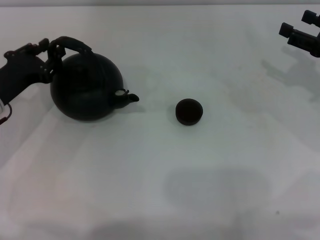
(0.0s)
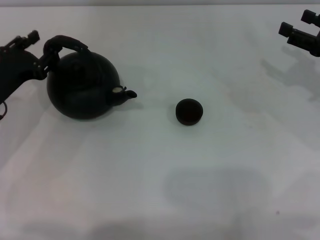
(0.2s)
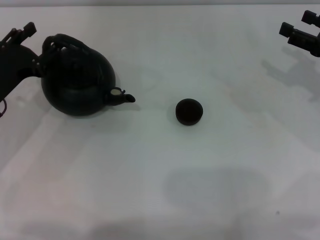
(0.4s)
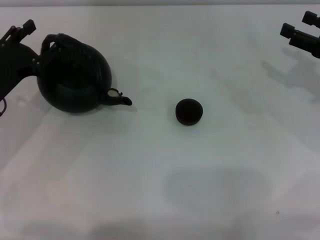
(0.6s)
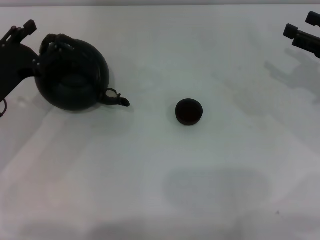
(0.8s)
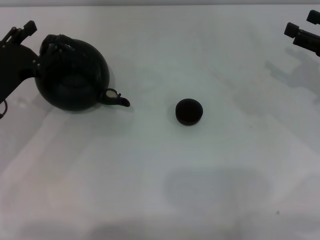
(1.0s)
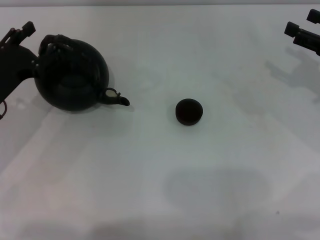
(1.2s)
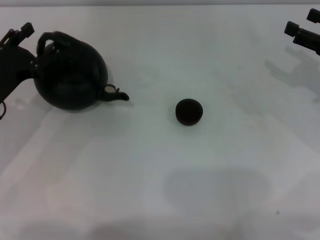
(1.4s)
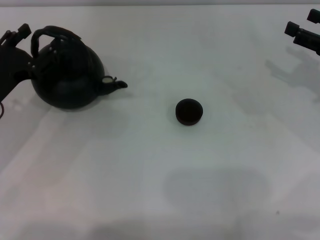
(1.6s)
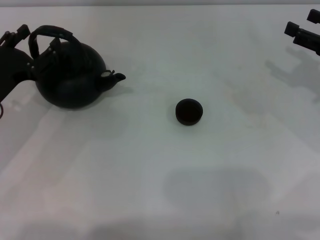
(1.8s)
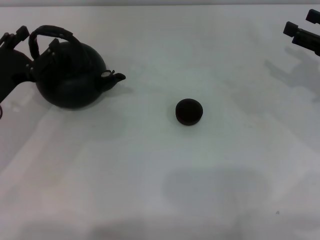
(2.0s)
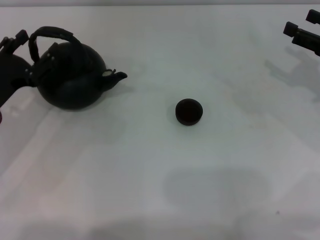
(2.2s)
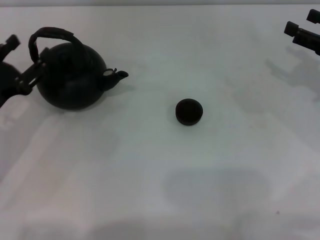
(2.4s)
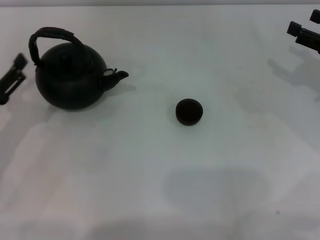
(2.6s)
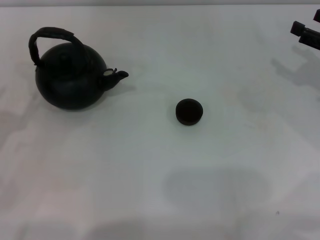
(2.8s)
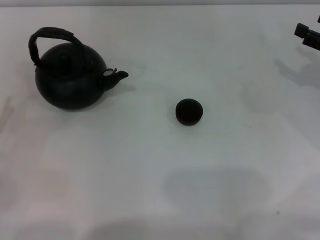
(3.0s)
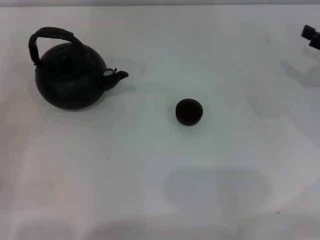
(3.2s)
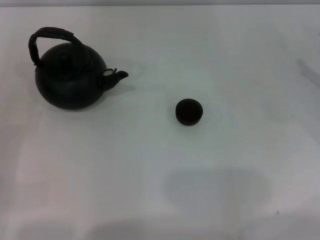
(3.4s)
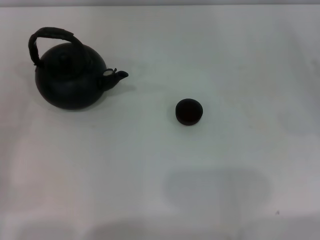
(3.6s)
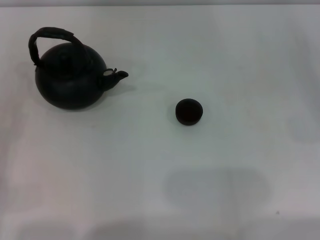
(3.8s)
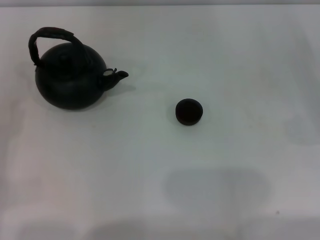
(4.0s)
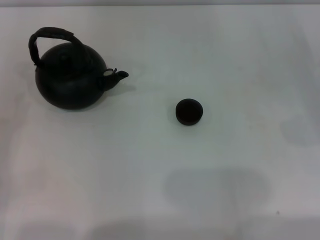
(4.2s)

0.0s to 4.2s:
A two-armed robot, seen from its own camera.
Task of the whole recording: Grasp the handle of the teapot with one hand and pour tea into the teacup.
Step, 0.0s to 2.6s: Put down the teapot with the left gripper.
0.0s to 1.4s: The left gripper opens its fingers.
1.4s to 2.8s: The left gripper travels backward by about 10 cm.
2.8s to 4.2s: The right gripper travels backward and downward by roughly 10 cm.

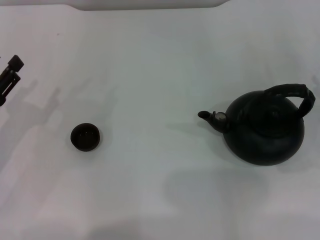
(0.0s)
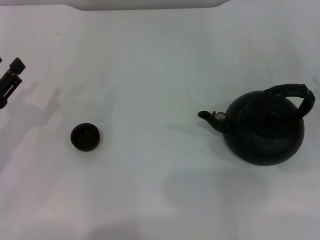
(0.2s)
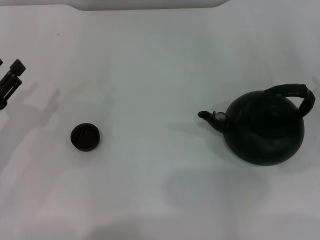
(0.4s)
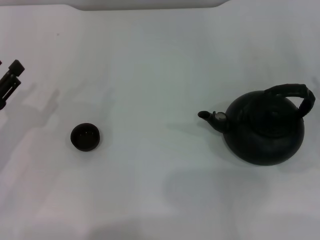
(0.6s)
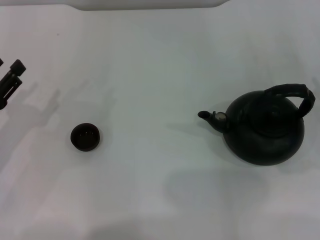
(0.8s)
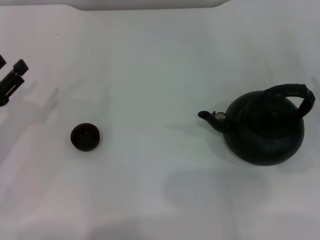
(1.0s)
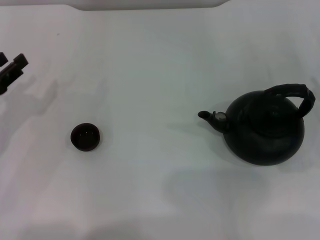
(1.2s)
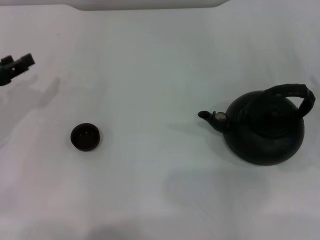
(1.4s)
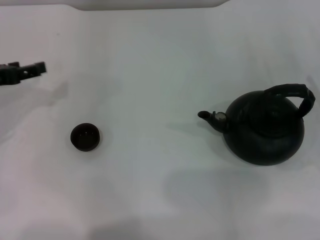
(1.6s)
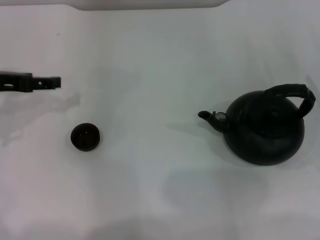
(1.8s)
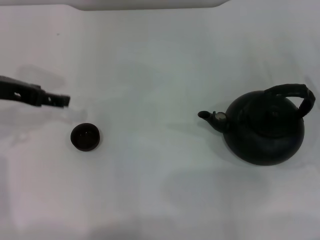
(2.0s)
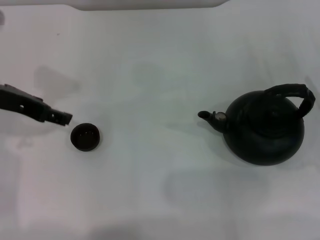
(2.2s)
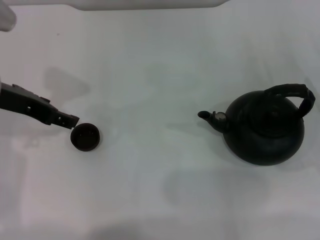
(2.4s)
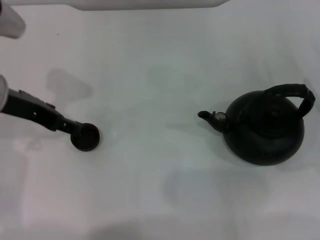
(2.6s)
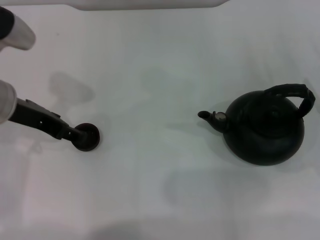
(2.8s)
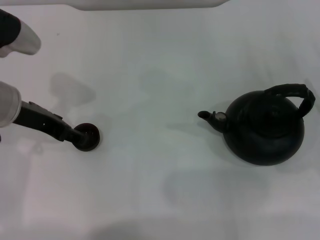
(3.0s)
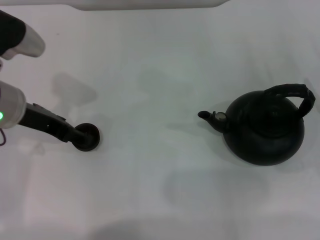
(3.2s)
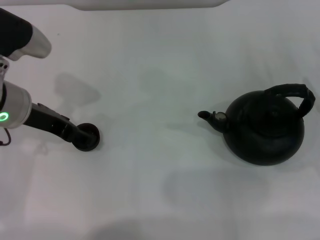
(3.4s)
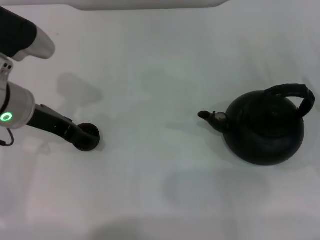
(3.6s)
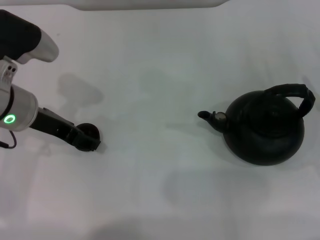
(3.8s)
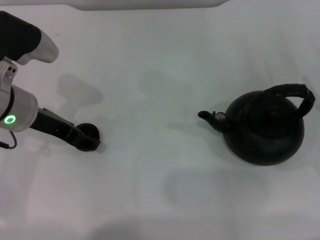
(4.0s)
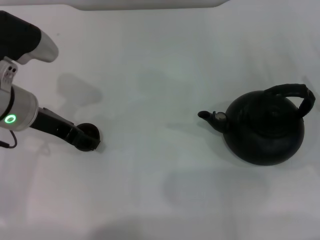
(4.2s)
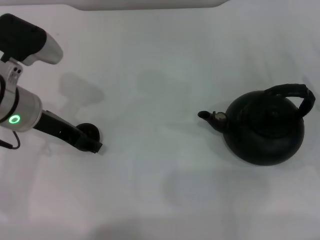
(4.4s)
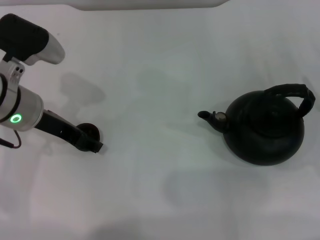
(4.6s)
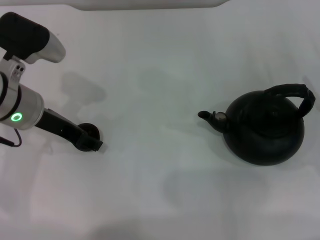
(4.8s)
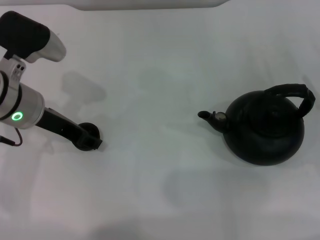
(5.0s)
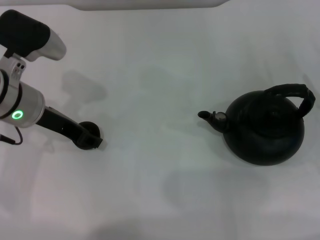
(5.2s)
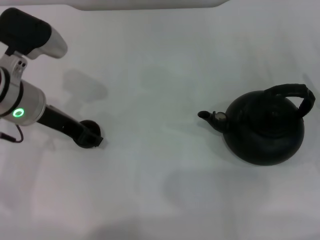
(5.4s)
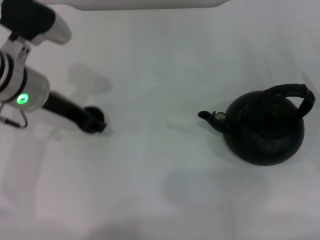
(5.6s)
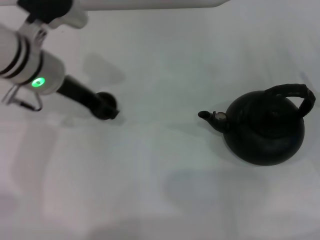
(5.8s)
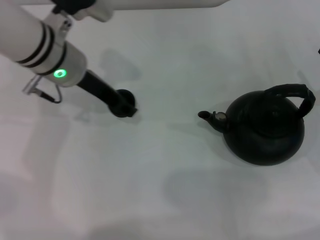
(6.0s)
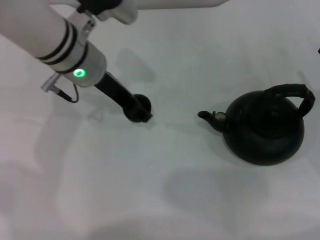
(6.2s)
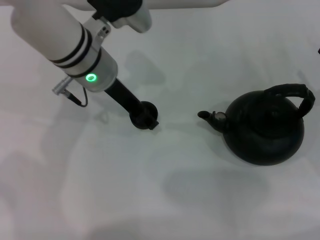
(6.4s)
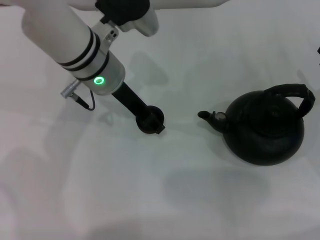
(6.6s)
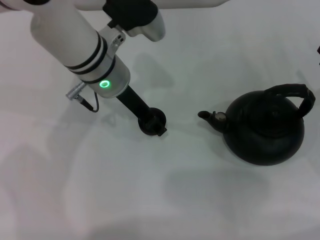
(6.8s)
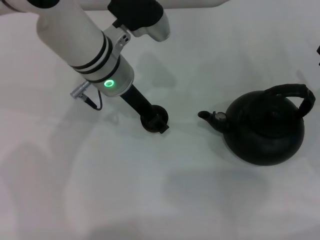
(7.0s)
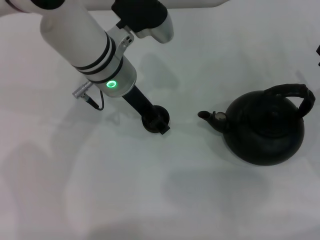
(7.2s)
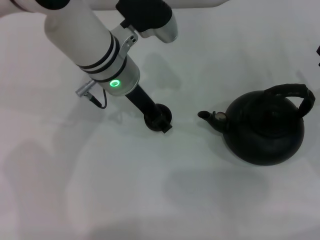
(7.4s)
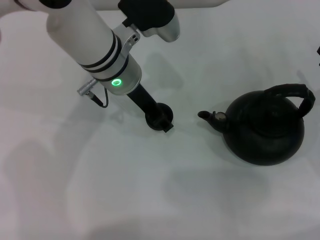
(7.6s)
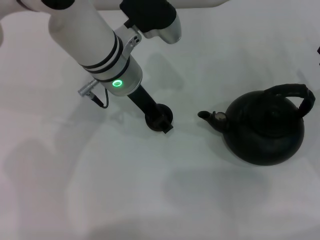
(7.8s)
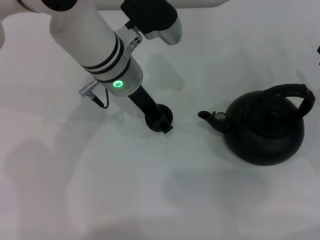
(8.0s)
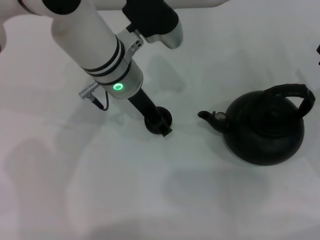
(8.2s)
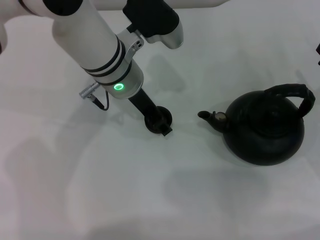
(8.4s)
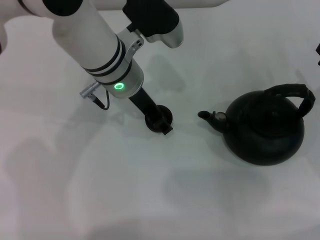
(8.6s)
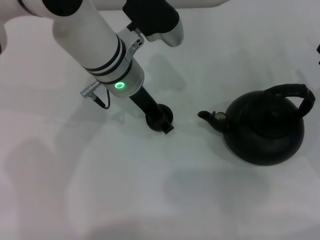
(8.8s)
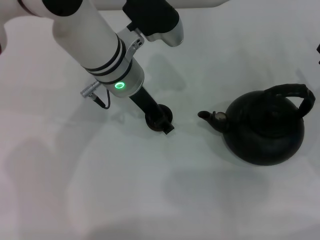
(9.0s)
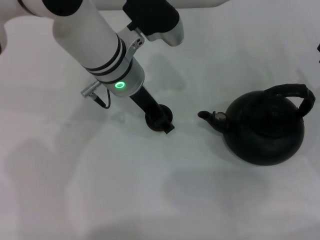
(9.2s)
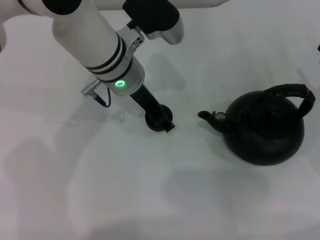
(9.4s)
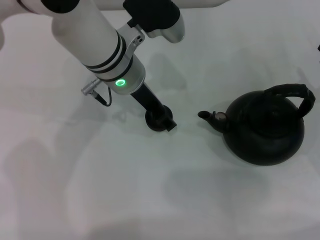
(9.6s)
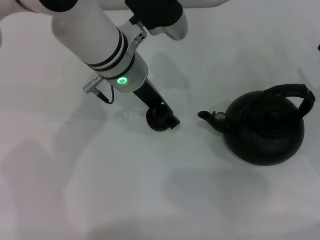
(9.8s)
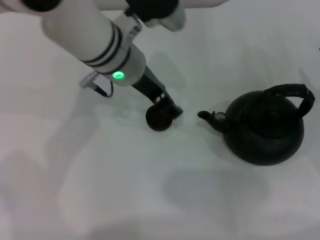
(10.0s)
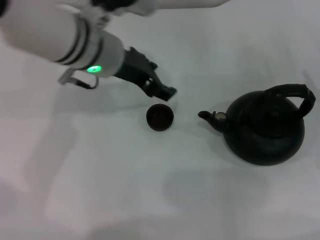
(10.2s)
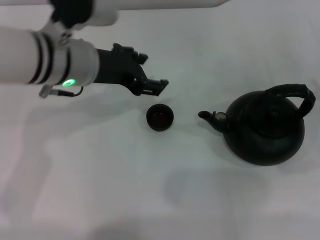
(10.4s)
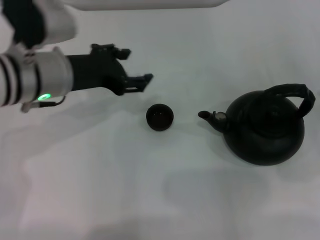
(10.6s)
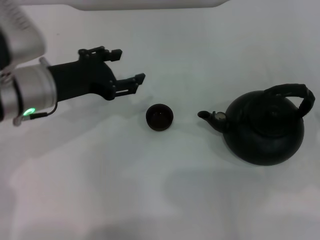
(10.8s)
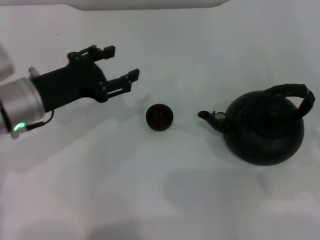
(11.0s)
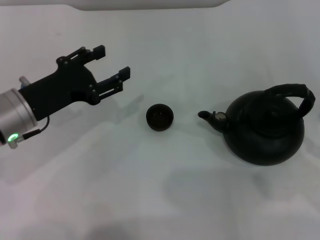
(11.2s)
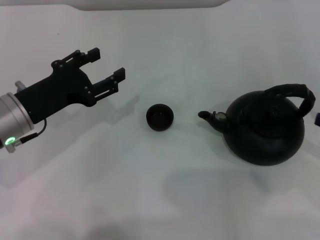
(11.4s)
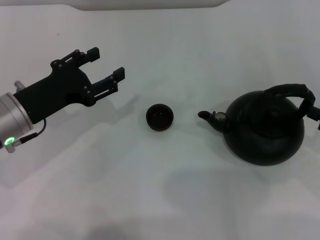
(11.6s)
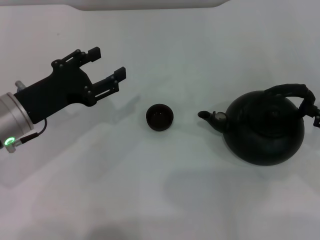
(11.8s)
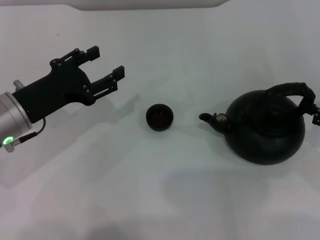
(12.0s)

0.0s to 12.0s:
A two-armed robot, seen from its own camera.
Task of the whole recording: Grasp the handle of the teapot with one hand and pour tea into the teacup.
Step, 0.0s to 5.4s: Pick up the teacup with the left gripper.
Step, 5.6s to 10.8s: Place the teacup in the center of view with the left gripper.
0.0s to 1.6s: The left gripper goes roughly 10 cm forward and upward.
1.6s to 3.0s: The left gripper moves to the right, about 10 cm, and opens.
3.0s to 4.4s: The grippers make only small movements.
4.4s to 6.0s: The left gripper moves to the right and forward, some 10 cm, and closes up.
6.0s to 7.6s: The left gripper is displaced to the right by some 5 cm.
7.6s to 9.0s: The left gripper opens.
9.0s to 10.4s: The left gripper goes about 5 cm to the left.
10.4s to 12.0s: The left gripper moves to the left, downward and backward, approximately 15 cm.

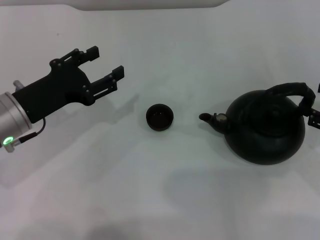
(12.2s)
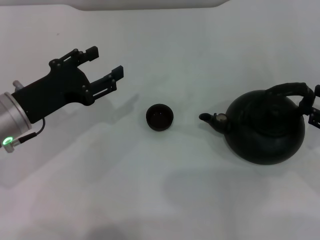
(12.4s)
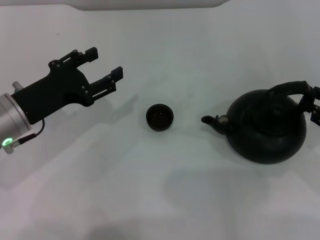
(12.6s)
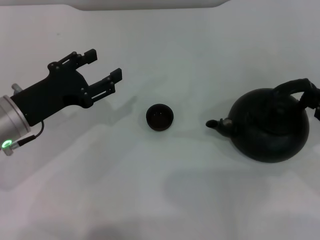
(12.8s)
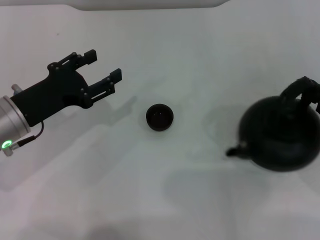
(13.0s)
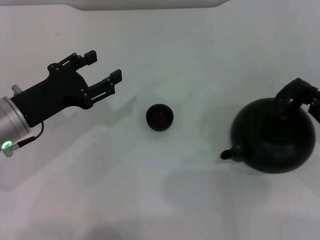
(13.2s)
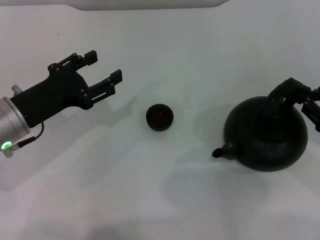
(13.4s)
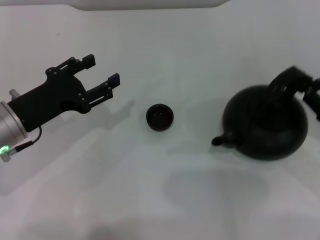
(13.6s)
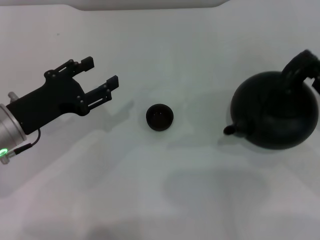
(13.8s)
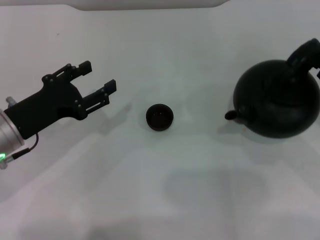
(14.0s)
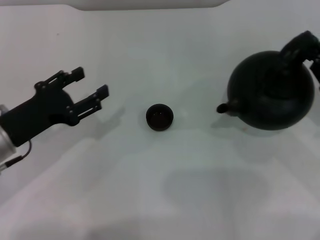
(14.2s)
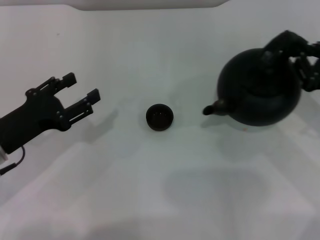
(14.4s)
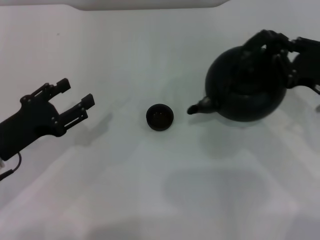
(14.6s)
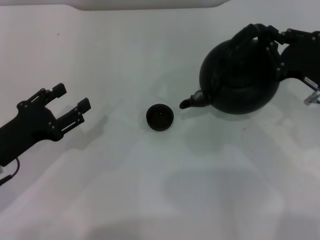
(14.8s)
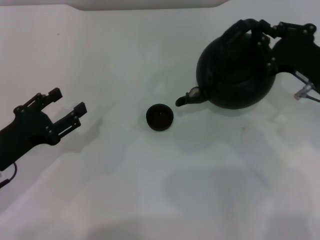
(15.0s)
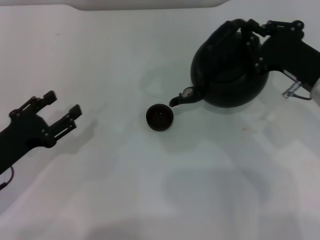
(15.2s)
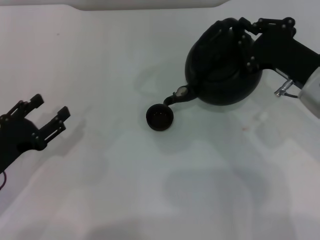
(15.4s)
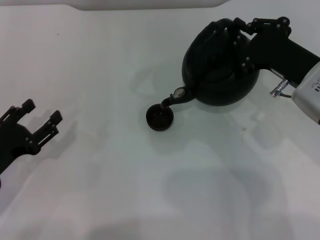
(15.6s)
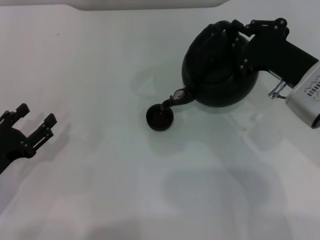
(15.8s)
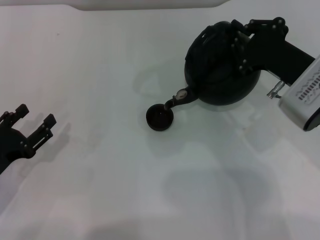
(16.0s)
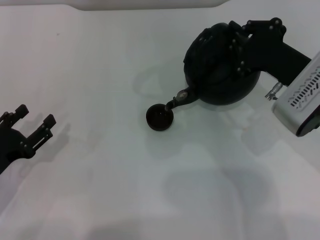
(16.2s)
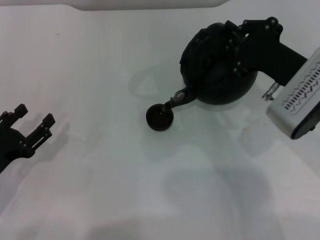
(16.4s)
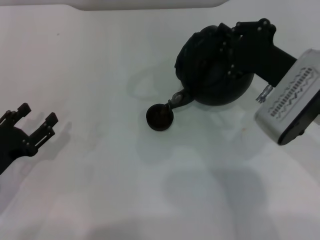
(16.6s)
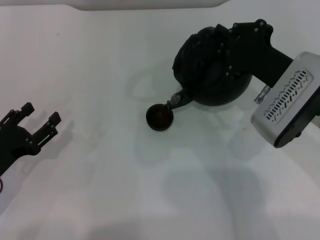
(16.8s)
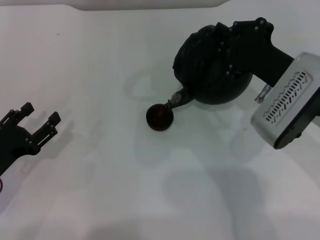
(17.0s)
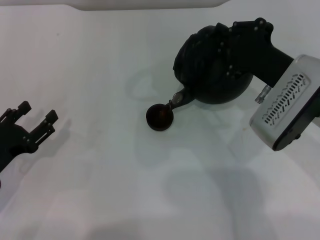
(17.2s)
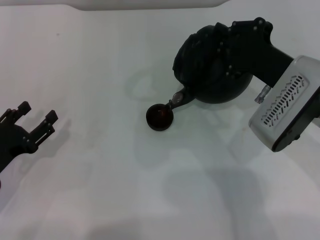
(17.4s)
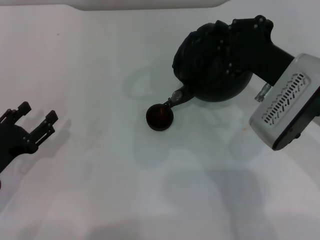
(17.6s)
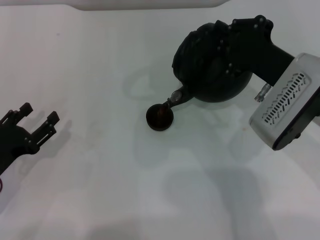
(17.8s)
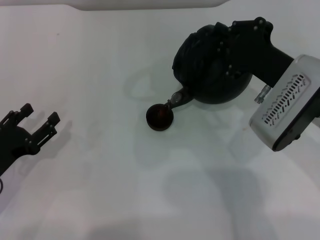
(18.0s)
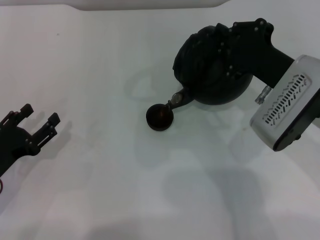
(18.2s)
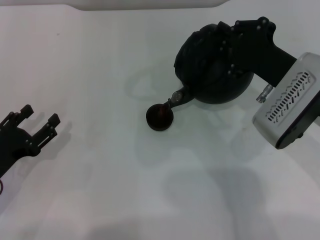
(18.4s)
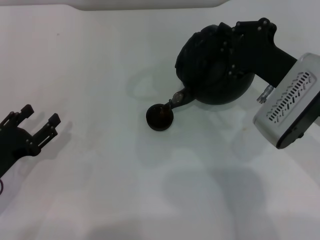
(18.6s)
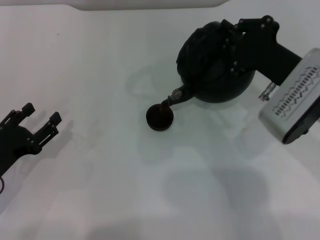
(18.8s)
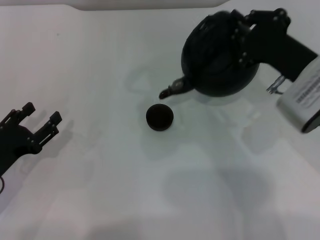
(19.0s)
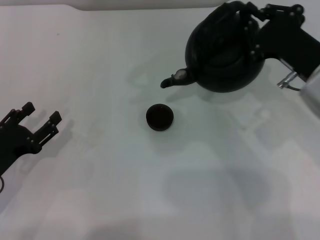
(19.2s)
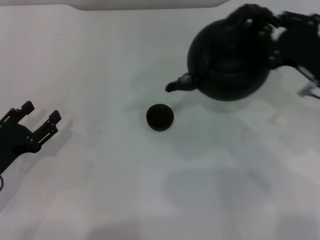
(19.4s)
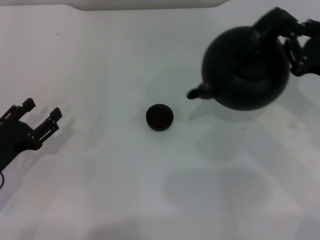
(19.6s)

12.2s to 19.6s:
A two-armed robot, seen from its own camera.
Task of the whole recording: Grasp the handle of the teapot with one hand and pour tea into the teacup.
Step, 12.2s to 15.0s: Pick up the teapot with the right gripper.
Step, 15.2s to 19.0s: Pour tea into the teacup with the right gripper.
12.2s to 13.6s: The right gripper closes its fingers.
13.6s to 15.2s: The right gripper travels to the left and forward by some 10 cm, while the left gripper moves backward, roughly 5 cm.
16.6s to 18.2s: There are only small adjustments of the grippers.
18.2s to 19.6s: The right gripper heads to the right, covering some 10 cm.
